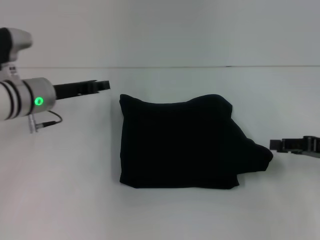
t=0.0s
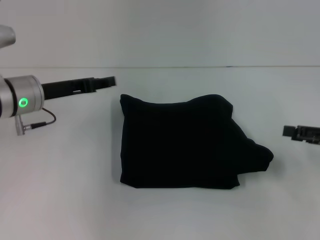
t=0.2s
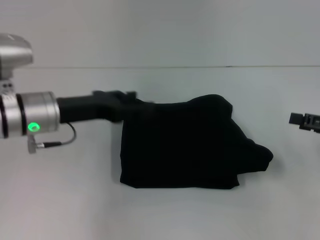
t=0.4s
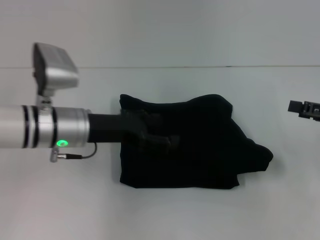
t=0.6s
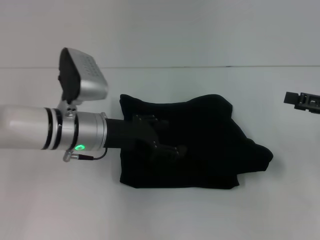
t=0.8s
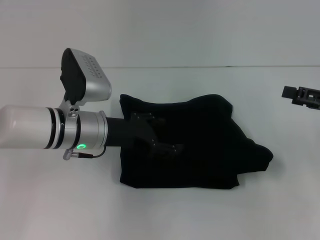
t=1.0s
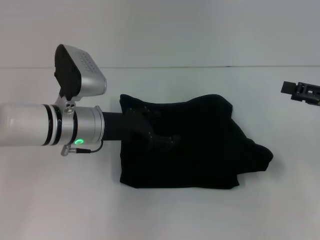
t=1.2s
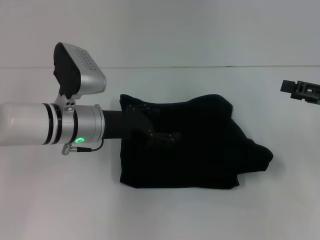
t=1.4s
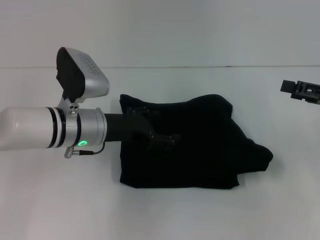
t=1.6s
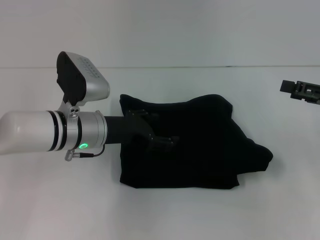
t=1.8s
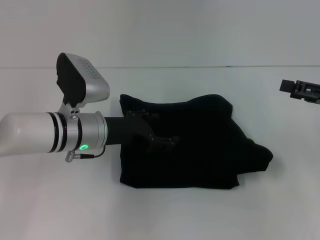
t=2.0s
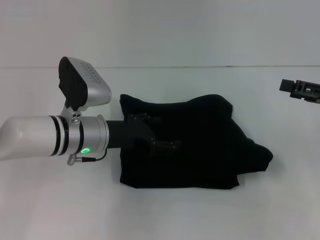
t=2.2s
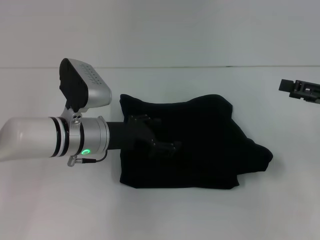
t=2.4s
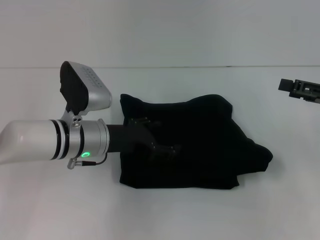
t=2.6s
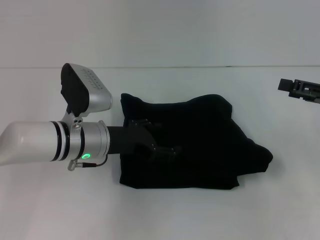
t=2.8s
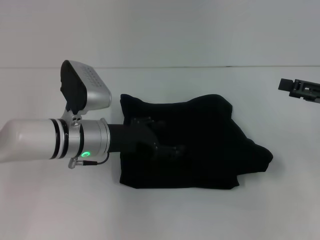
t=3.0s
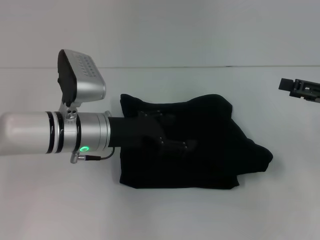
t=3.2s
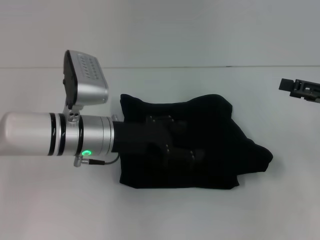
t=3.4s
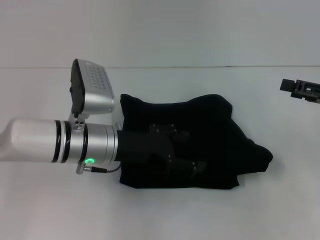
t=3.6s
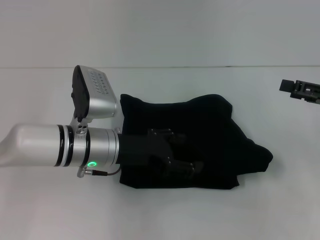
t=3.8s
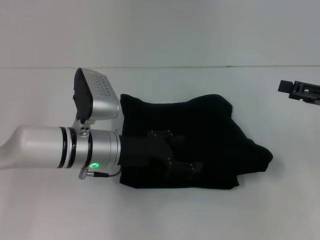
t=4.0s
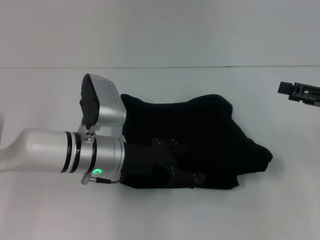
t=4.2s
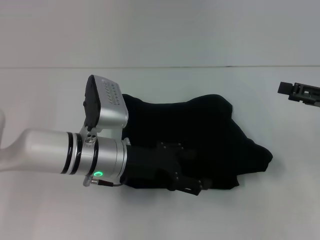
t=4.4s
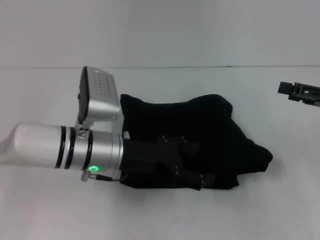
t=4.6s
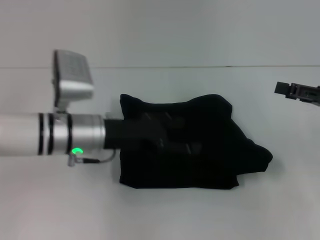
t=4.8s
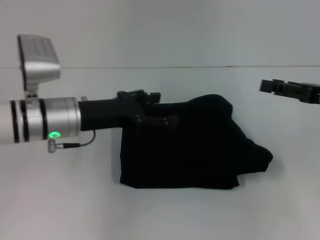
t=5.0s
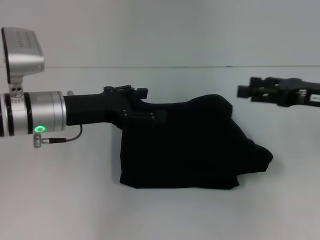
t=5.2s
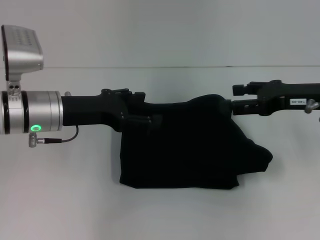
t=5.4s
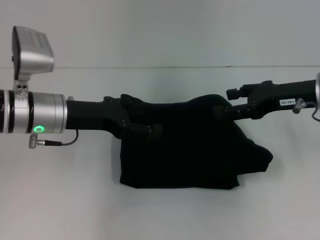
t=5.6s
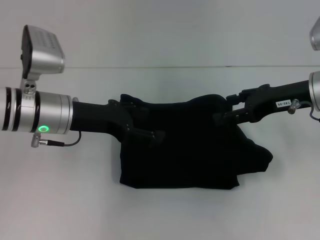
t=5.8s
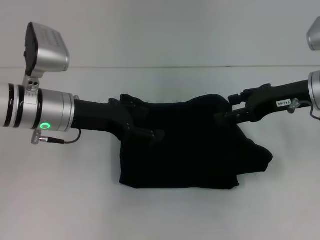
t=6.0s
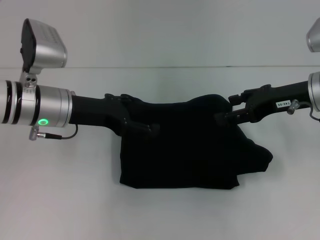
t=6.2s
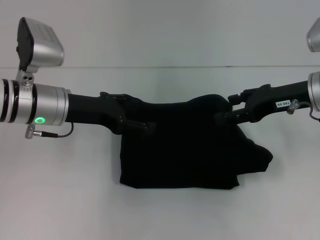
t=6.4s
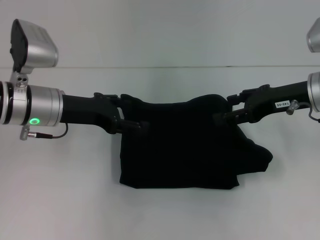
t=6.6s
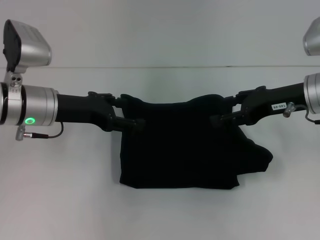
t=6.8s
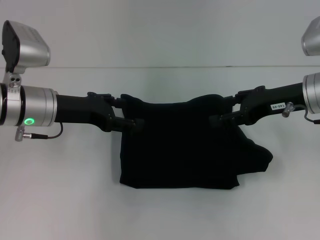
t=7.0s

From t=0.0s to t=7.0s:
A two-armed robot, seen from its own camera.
From t=0.0s to t=1.4s: The right gripper opens. Meanwhile the left gripper goes approximately 5 cm to the right, and opens its fingers.
From t=1.4s to t=4.2s: The grippers make only small movements.
From t=4.2s to t=5.6s: The left gripper heads to the left and upward, covering some 10 cm; the right gripper heads to the left, covering approximately 10 cm.
From t=5.6s to t=7.0s: The grippers move only a little.

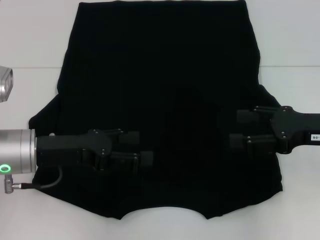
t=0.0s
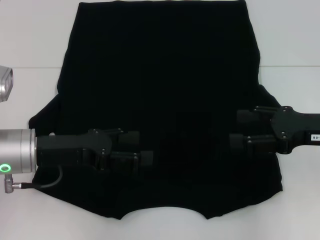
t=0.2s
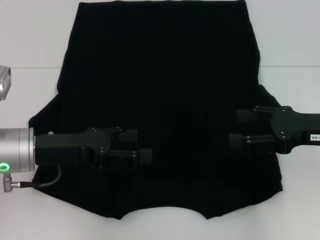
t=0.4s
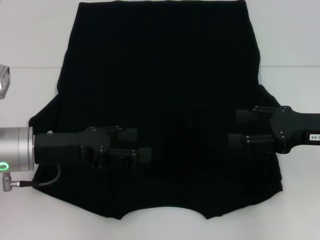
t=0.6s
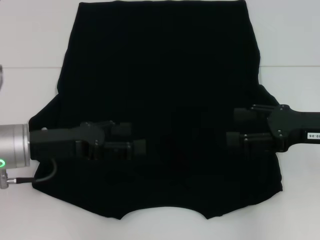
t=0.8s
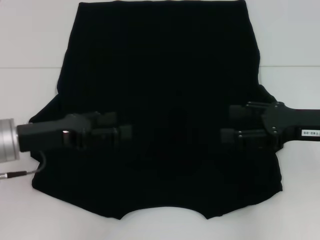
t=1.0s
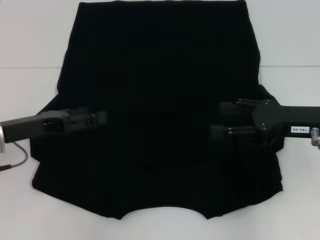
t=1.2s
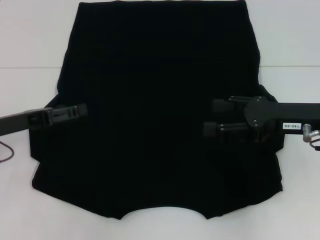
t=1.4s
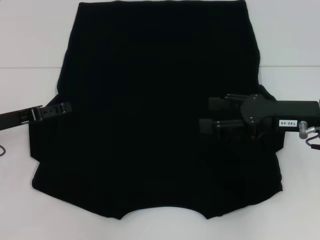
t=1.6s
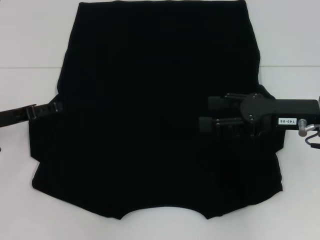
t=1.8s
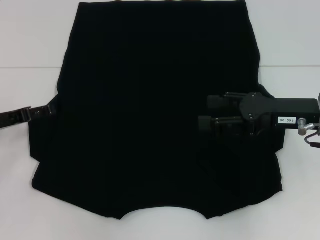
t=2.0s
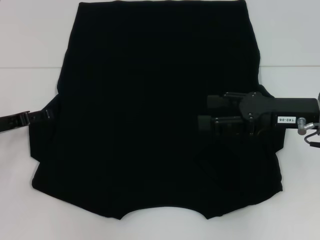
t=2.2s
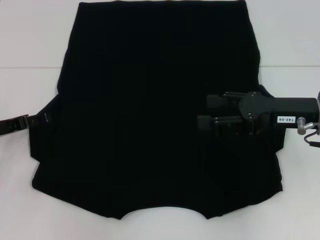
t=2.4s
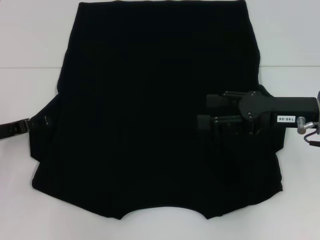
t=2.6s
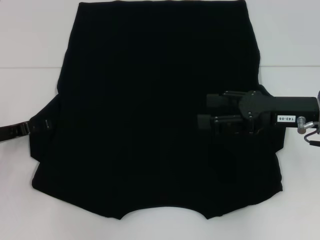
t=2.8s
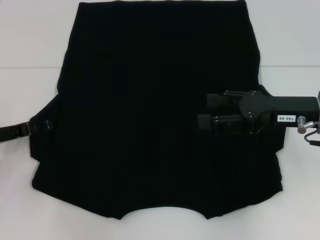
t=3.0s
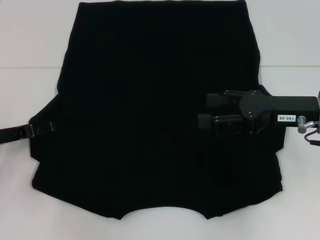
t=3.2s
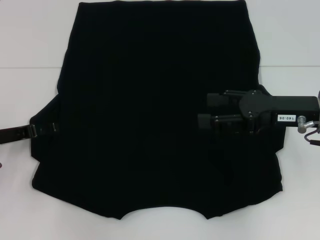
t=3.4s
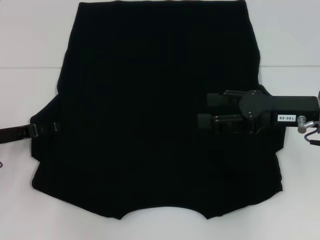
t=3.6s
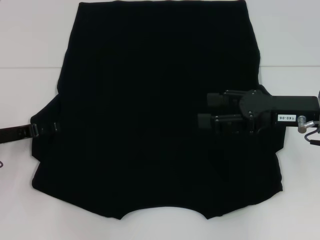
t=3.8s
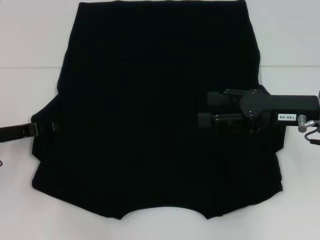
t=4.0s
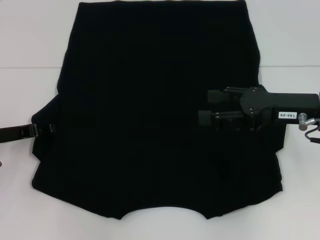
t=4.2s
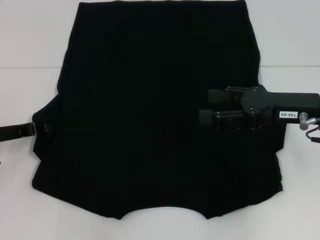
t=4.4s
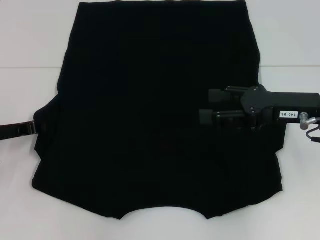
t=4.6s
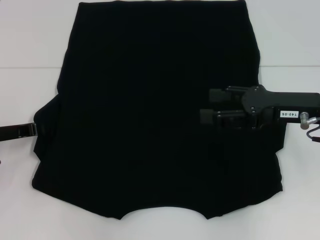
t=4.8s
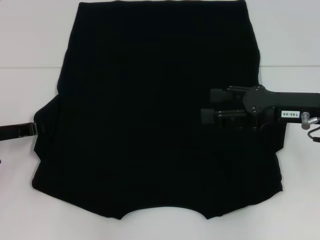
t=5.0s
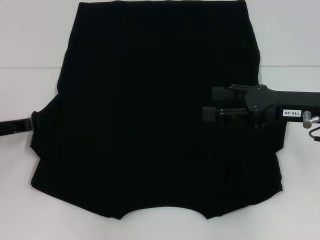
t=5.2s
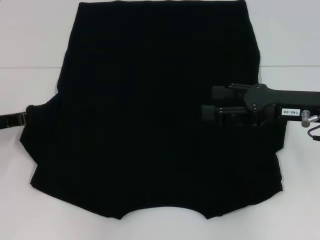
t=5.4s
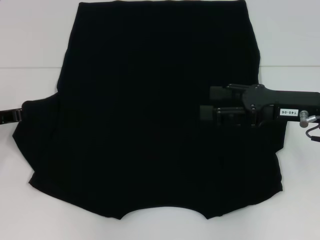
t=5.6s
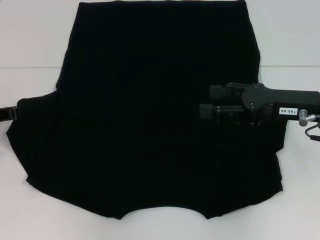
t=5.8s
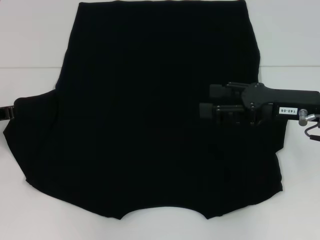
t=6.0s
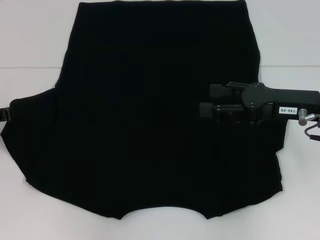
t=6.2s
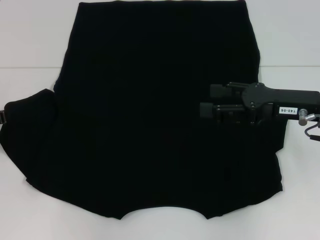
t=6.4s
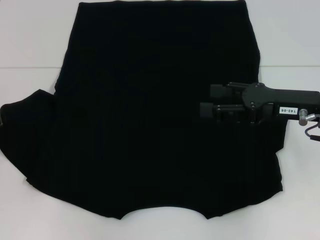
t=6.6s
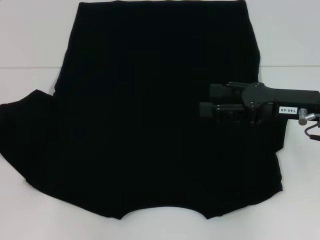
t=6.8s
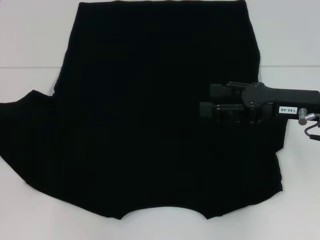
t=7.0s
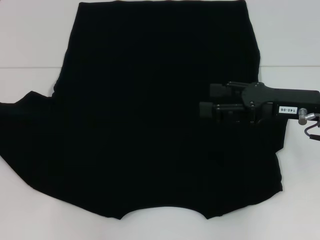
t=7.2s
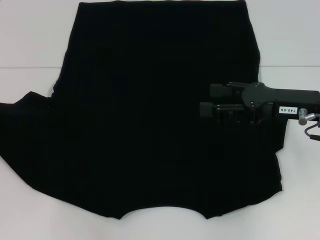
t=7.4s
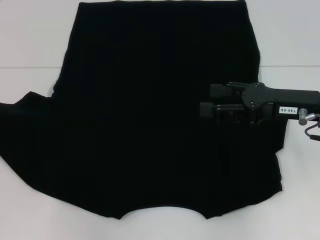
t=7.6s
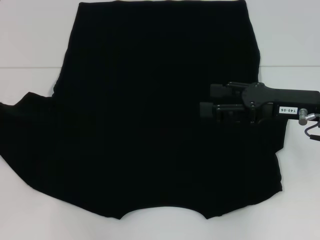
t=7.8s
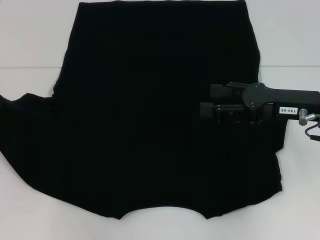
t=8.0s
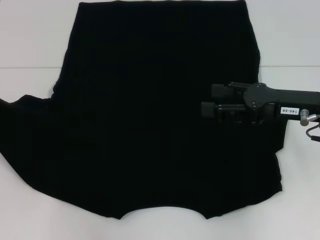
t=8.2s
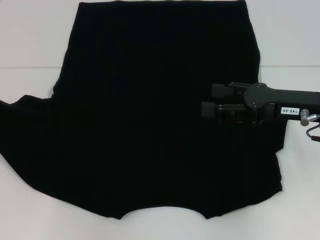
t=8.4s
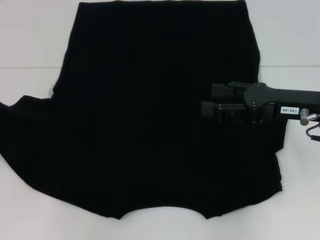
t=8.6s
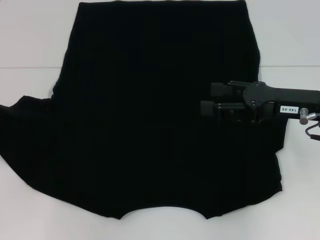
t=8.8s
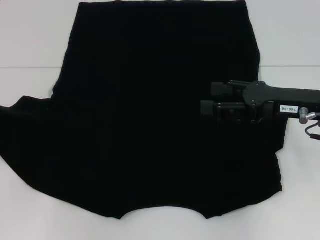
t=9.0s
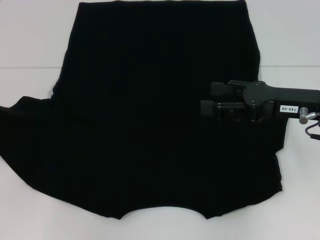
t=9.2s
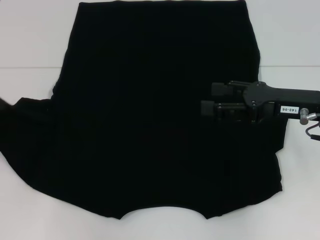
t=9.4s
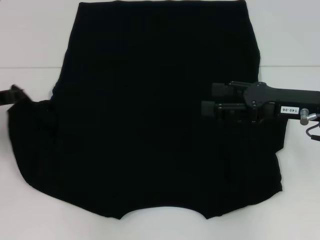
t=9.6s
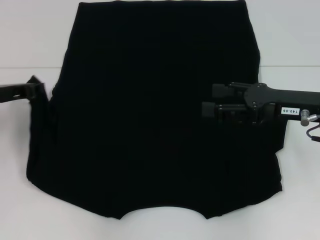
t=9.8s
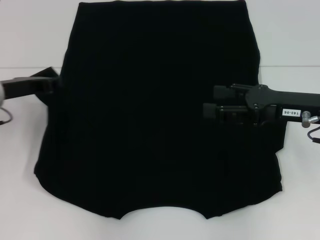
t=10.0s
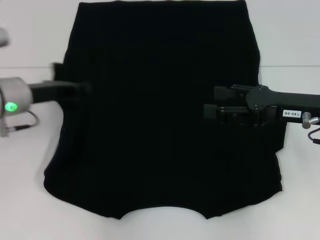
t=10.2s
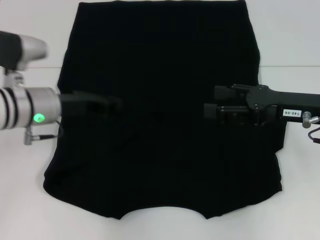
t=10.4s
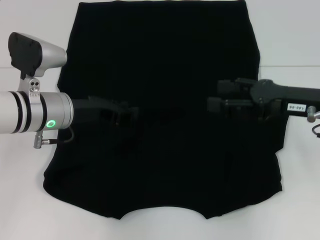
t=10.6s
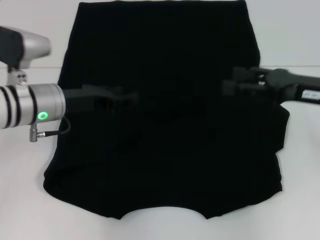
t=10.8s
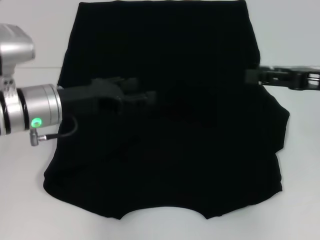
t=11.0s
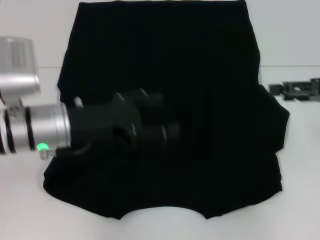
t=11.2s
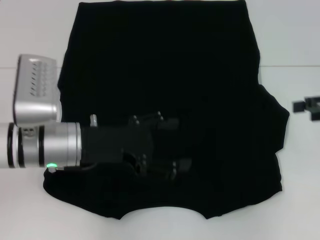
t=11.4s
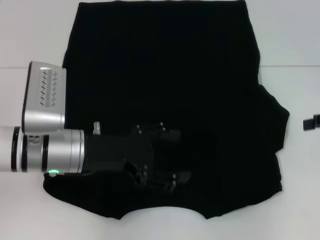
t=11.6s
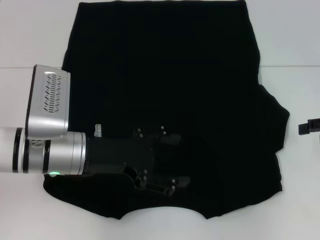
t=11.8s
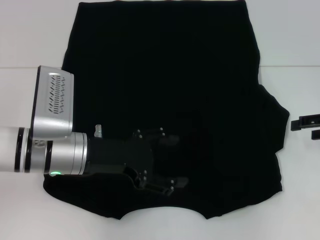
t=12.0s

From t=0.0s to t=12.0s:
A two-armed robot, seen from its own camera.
Step, from t=0.0s to t=10.6s: Fold the bottom left sleeve with your left hand.
From t=0.0s to t=1.6s: The left gripper travels to the left by roughly 10 cm.
From t=1.6s to t=3.0s: There are only small adjustments of the grippers.
From t=4.4s to t=6.0s: The left gripper closes up.
From t=6.0s to t=9.0s: There are only small adjustments of the grippers.
From t=9.0s to t=10.4s: The left gripper shifts roughly 15 cm to the right.
From t=10.4s to t=12.0s: The right gripper travels to the right by about 10 cm; the left gripper moves backward, some 5 cm, and opens its fingers.

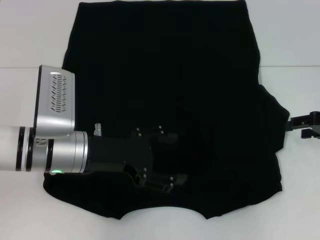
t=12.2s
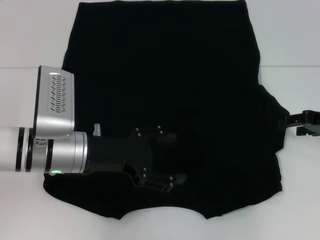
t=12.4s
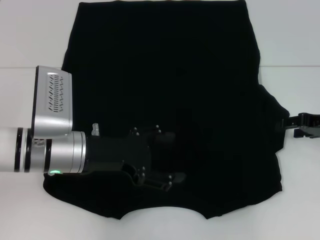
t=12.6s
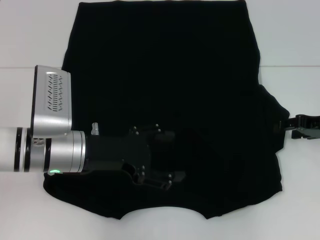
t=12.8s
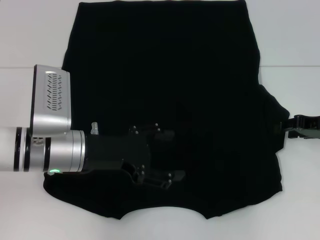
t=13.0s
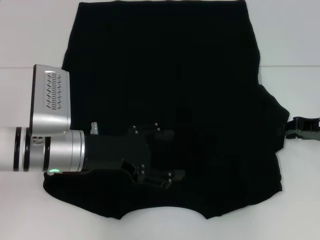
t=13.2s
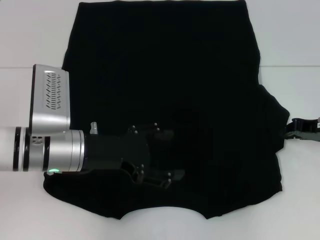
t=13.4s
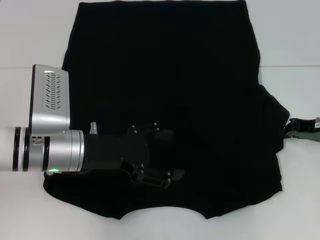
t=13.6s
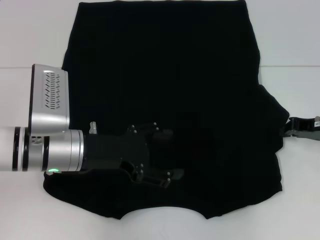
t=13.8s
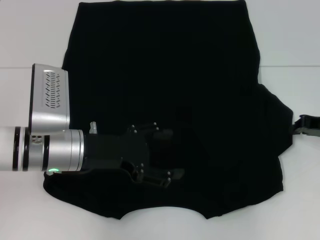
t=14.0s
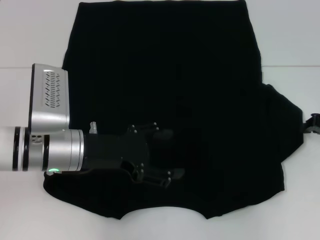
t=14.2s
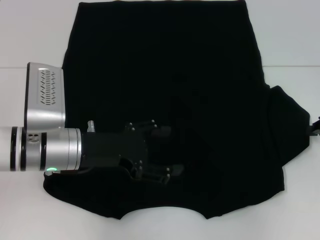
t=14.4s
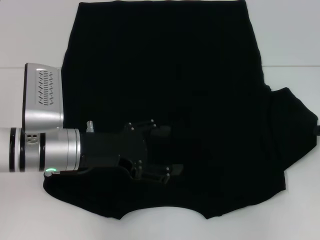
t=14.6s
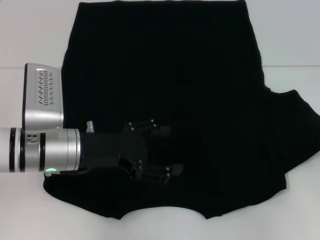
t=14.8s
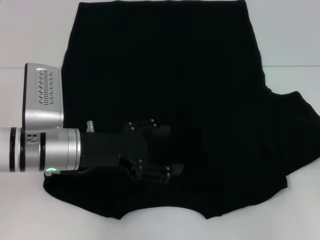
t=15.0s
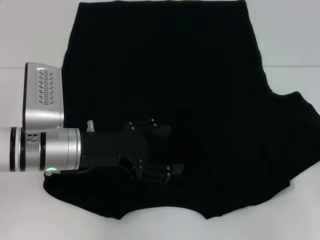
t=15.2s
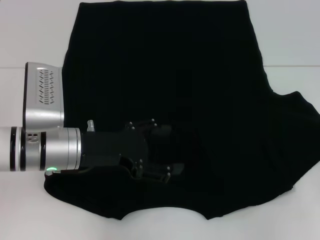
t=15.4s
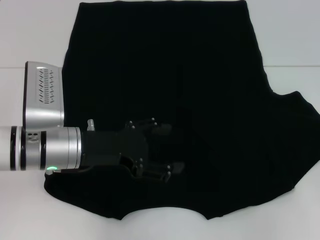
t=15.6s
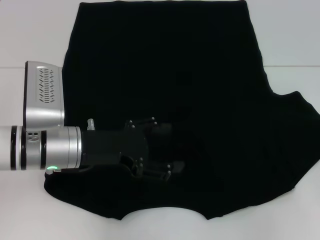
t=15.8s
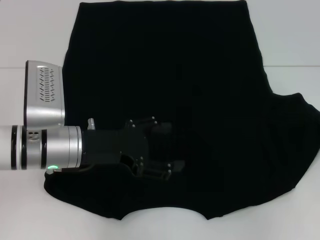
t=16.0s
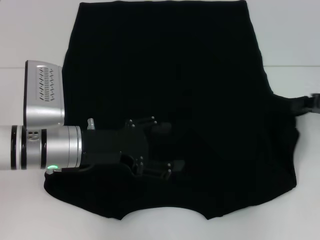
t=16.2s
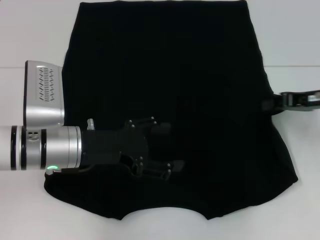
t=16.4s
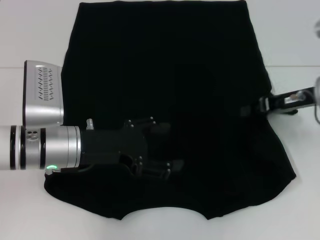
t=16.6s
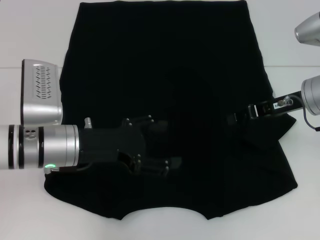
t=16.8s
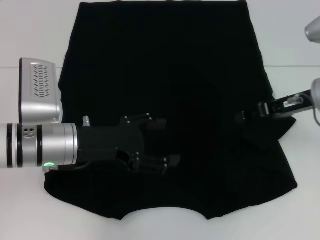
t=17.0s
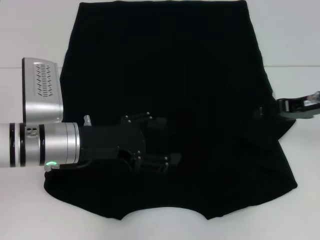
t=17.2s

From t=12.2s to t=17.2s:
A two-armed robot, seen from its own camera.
Step, from t=12.2s to t=16.8s: Fold the bottom right sleeve with your right hand.
From t=12.2s to t=13.8s: The right gripper closes up.
From t=13.8s to t=15.6s: The right gripper travels to the right by about 10 cm.
From t=15.6s to t=17.2s: The right gripper heads to the left, covering approximately 10 cm, and opens.
